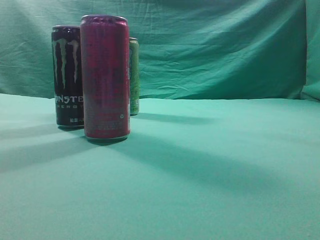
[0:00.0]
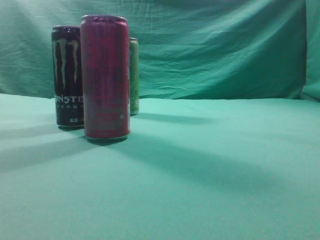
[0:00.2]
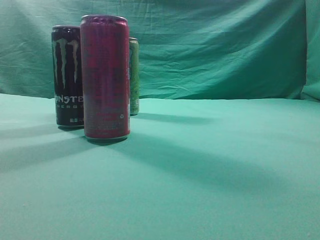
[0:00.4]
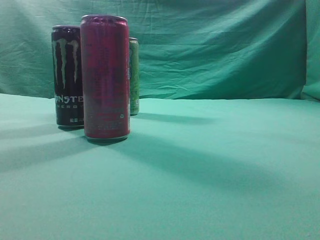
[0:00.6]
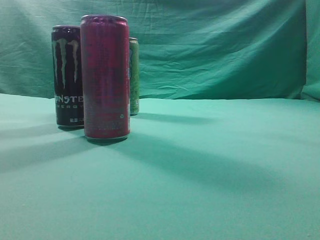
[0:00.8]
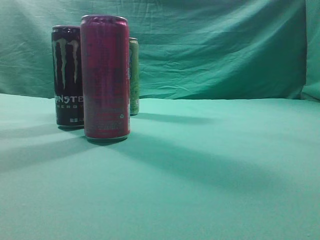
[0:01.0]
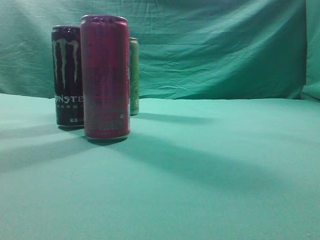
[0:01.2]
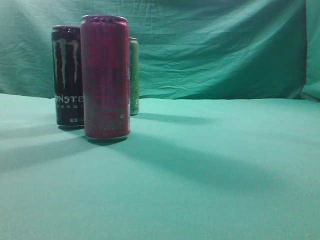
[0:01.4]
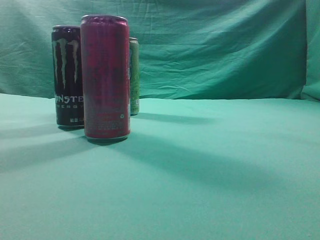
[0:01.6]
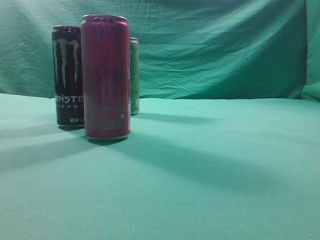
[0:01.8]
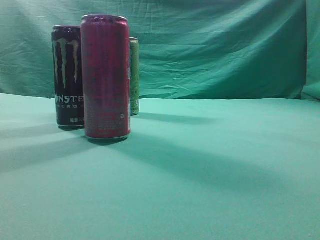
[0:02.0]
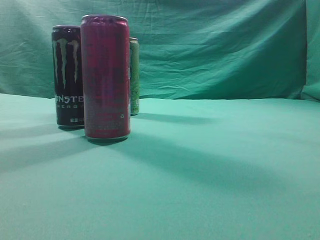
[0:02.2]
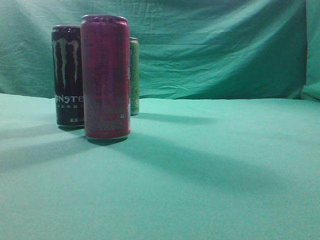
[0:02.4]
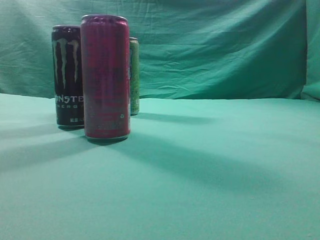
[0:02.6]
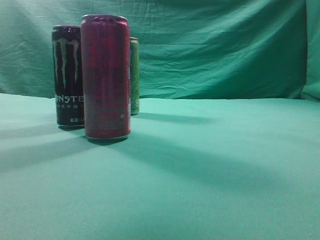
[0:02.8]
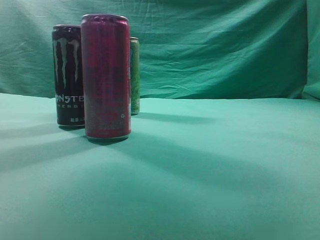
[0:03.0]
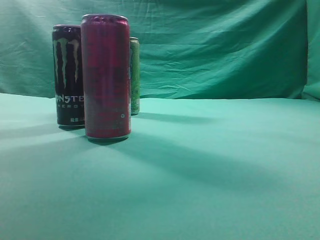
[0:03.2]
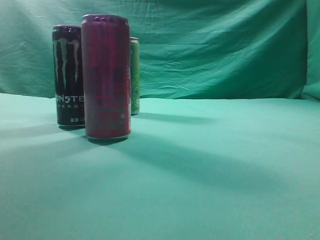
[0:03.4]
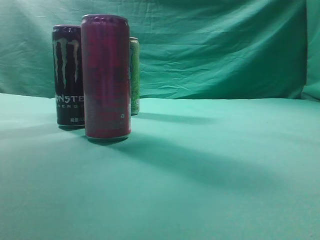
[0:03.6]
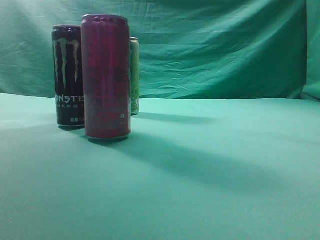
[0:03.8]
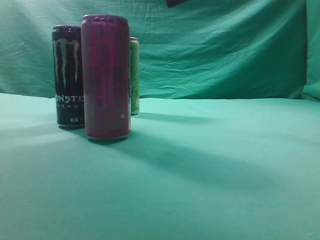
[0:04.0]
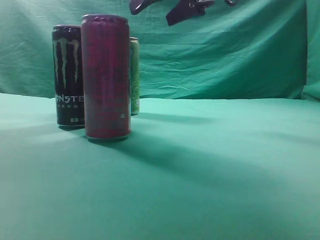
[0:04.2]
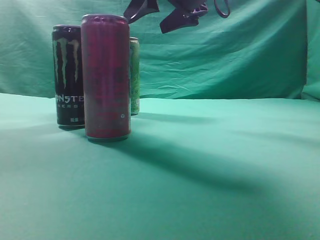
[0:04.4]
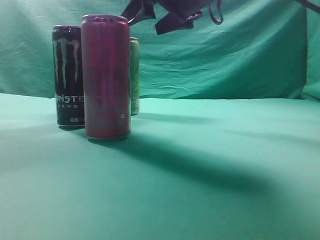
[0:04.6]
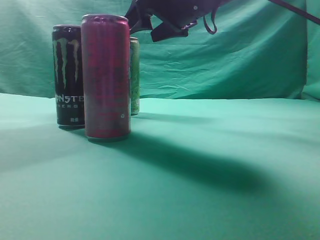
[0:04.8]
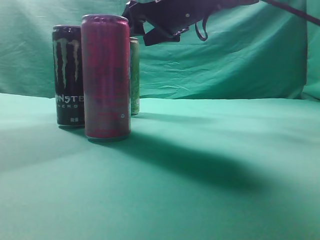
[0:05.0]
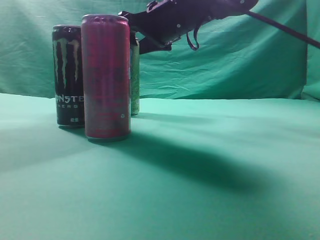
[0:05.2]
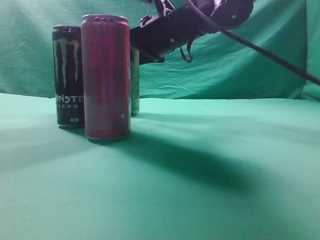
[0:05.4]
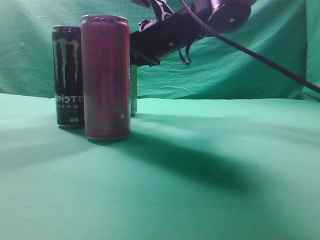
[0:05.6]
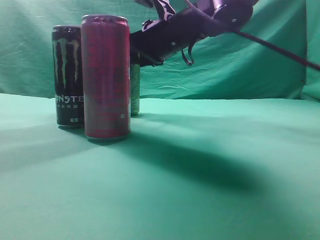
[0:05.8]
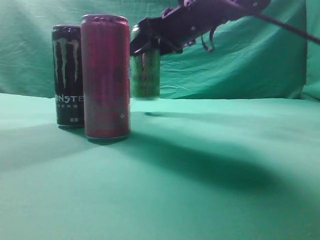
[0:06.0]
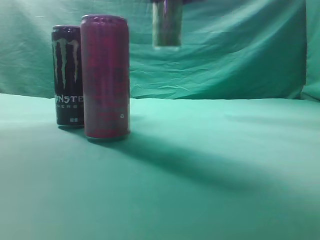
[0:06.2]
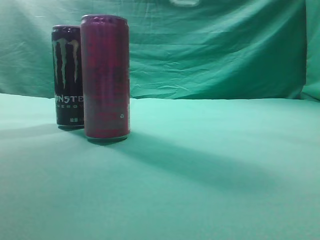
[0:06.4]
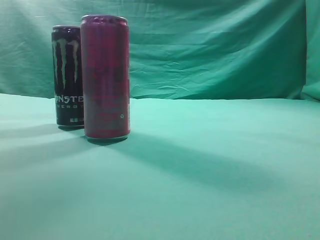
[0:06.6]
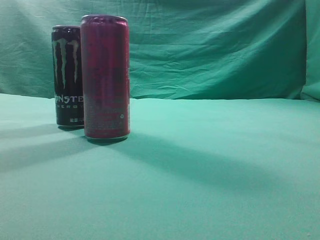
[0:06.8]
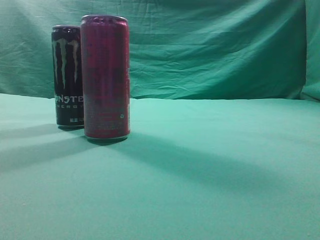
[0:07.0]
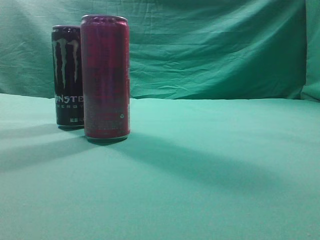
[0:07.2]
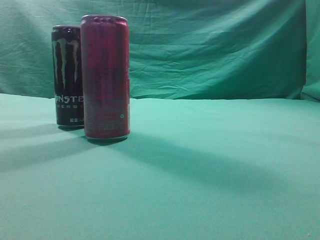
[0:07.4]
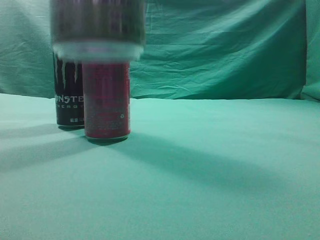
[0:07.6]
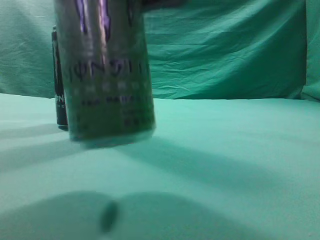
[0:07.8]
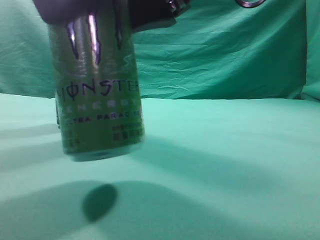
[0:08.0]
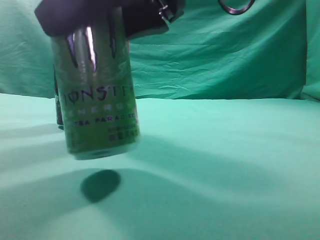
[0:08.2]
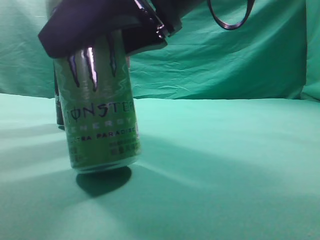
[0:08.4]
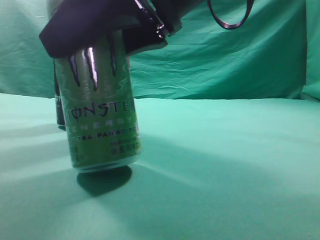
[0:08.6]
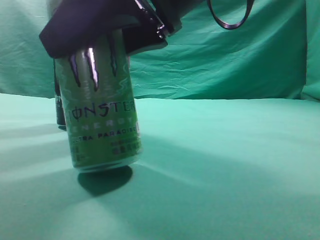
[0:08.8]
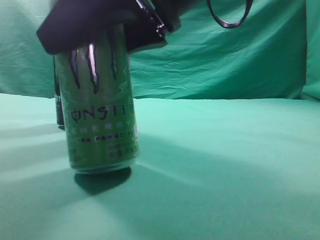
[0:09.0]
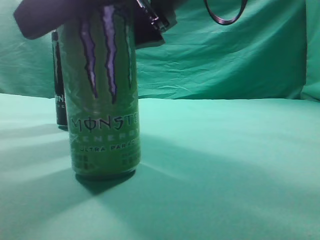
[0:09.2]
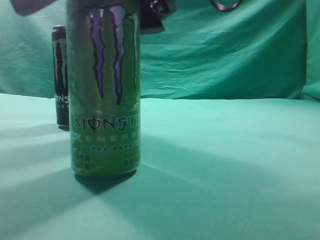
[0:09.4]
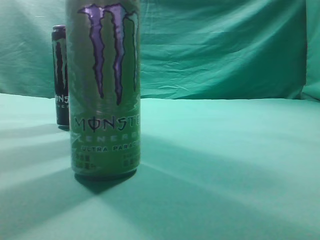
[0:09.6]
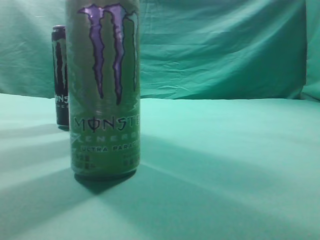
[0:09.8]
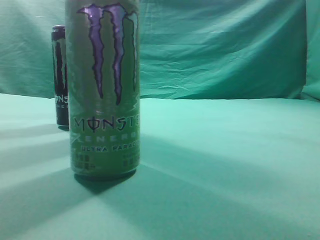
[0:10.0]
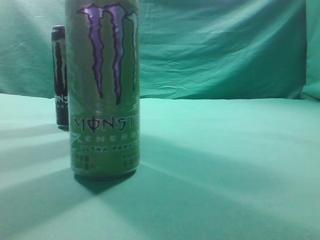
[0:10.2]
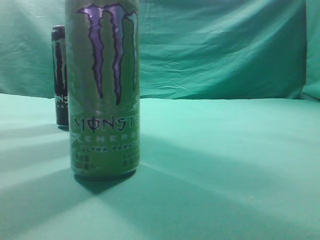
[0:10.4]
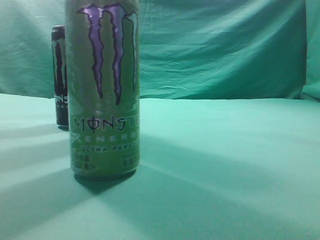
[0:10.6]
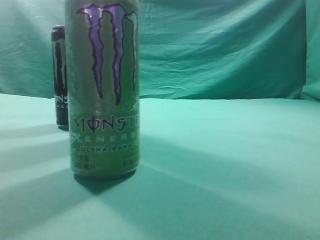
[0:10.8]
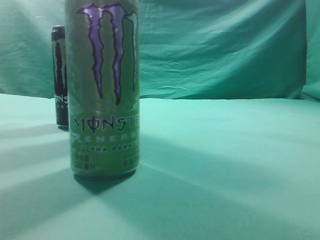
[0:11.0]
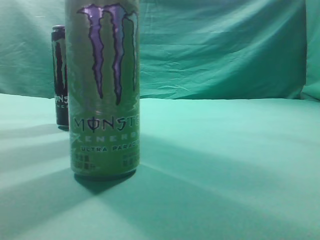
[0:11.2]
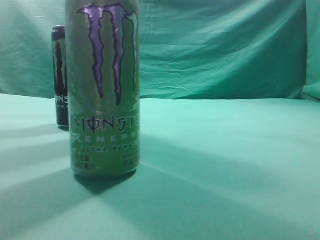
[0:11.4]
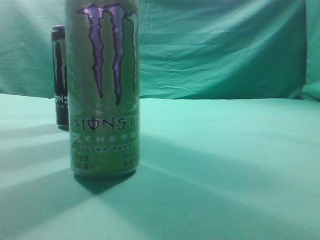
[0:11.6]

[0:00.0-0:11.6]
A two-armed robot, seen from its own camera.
Task of the whole recording: move one drink among three beverages.
Step, 0:00.0 to 0:06.0: Grasp the beverage bottle placed at the back of the desk.
Step, 0:06.2 to 0:09.6: Place the beverage bottle to the front of the table.
0:01.4 to 0:02.8: The right gripper is displaced forward, to the left and upward by approximately 25 cm.
0:02.8 to 0:04.4: The right gripper heads forward and to the left, covering approximately 20 cm, and opens.
0:04.4 to 0:05.8: The right gripper heads downward, covering roughly 5 cm, and closes up.
0:05.8 to 0:07.2: The right gripper moves backward, upward and to the right, about 35 cm.
0:07.2 to 0:08.8: The right gripper heads downward and to the left, covering about 15 cm.
0:08.8 to 0:10.2: The right gripper travels upward and to the right by approximately 20 cm, and closes its fingers.
